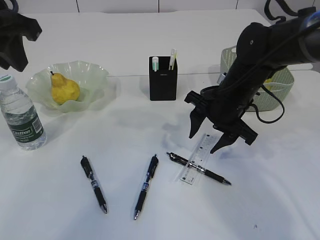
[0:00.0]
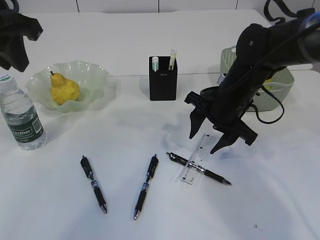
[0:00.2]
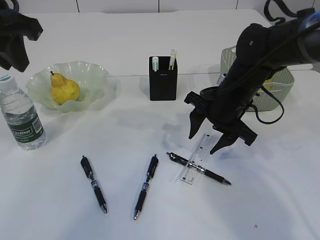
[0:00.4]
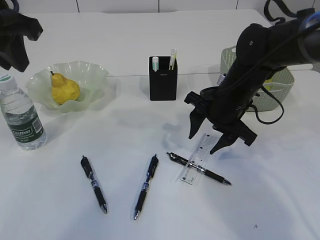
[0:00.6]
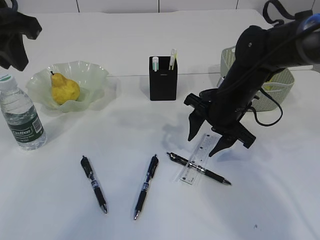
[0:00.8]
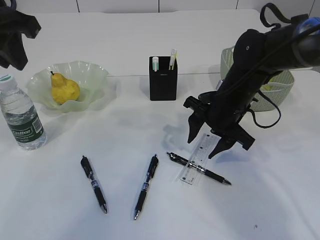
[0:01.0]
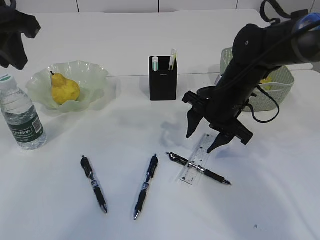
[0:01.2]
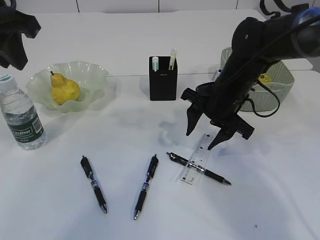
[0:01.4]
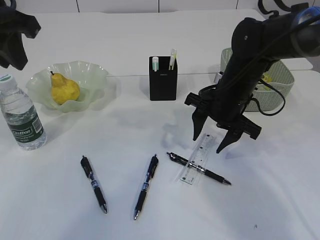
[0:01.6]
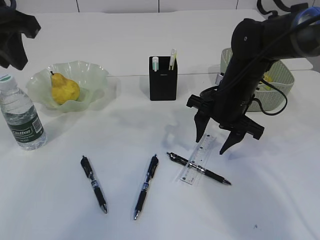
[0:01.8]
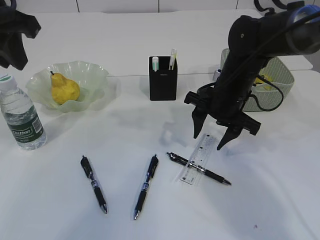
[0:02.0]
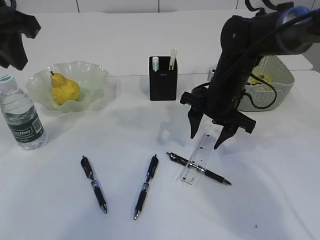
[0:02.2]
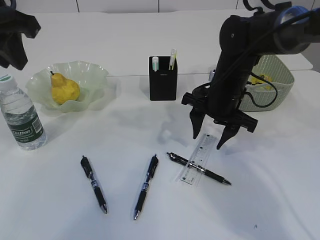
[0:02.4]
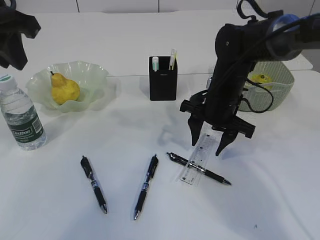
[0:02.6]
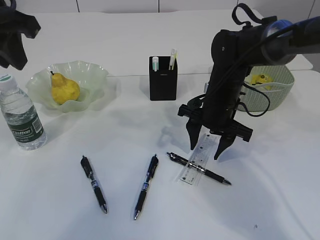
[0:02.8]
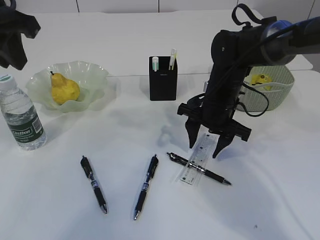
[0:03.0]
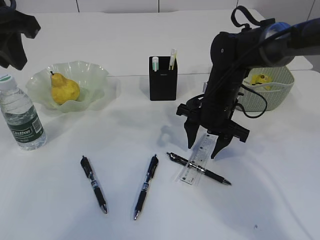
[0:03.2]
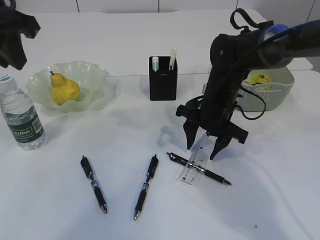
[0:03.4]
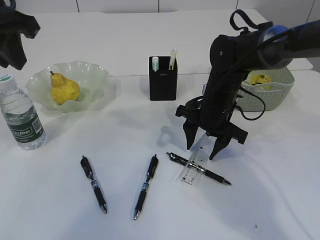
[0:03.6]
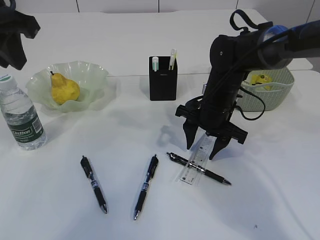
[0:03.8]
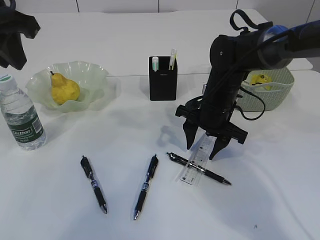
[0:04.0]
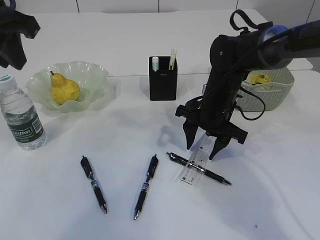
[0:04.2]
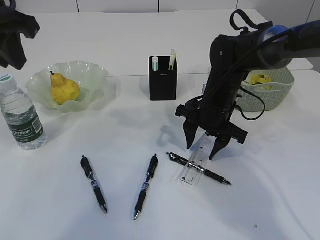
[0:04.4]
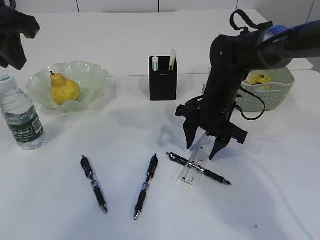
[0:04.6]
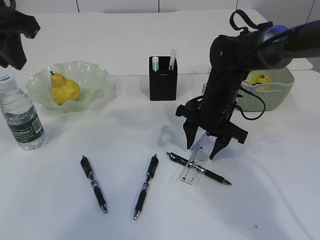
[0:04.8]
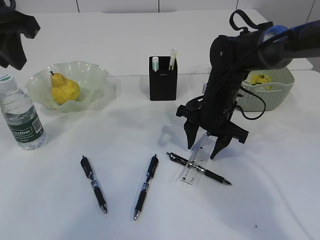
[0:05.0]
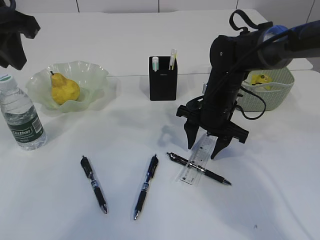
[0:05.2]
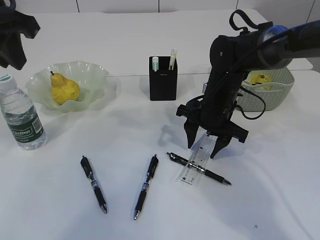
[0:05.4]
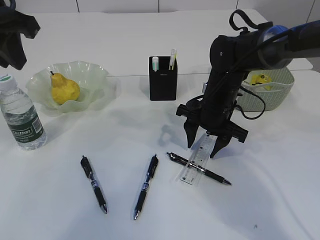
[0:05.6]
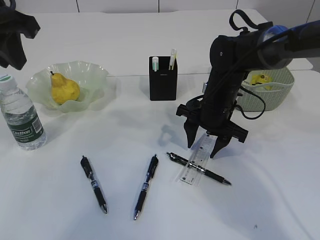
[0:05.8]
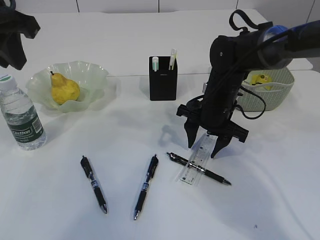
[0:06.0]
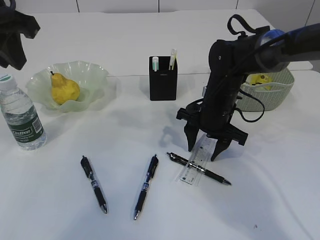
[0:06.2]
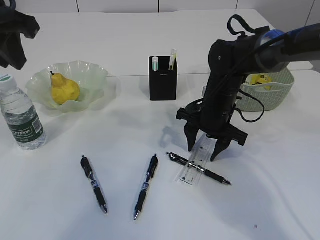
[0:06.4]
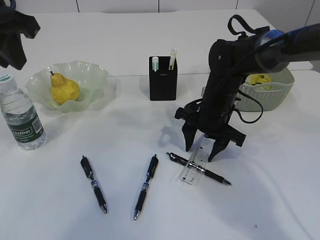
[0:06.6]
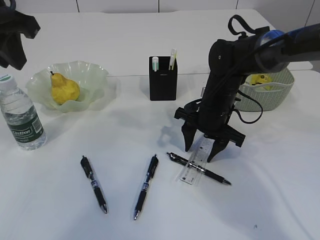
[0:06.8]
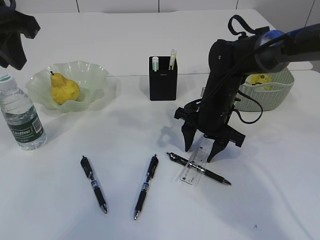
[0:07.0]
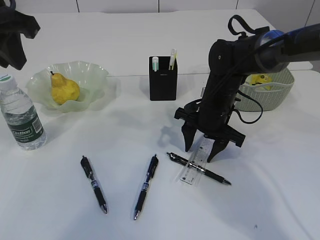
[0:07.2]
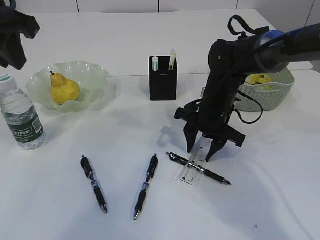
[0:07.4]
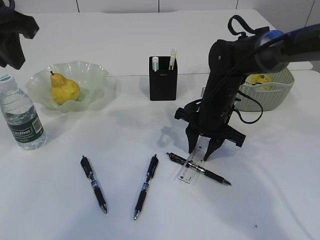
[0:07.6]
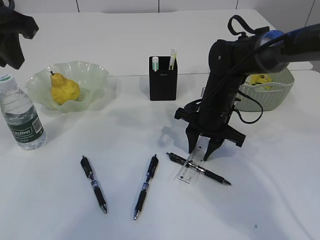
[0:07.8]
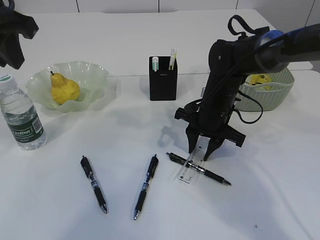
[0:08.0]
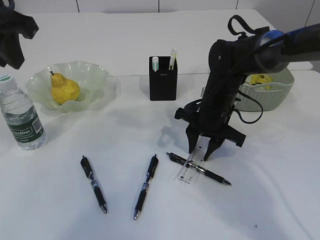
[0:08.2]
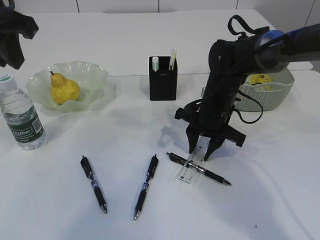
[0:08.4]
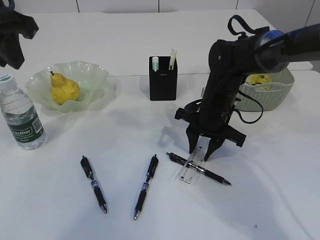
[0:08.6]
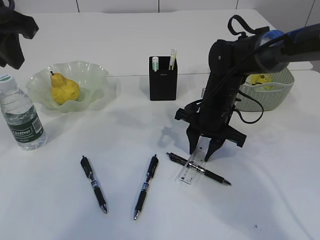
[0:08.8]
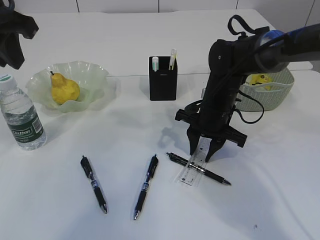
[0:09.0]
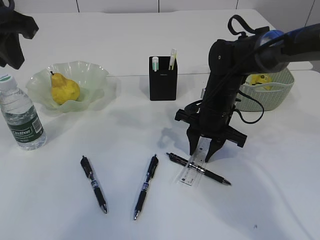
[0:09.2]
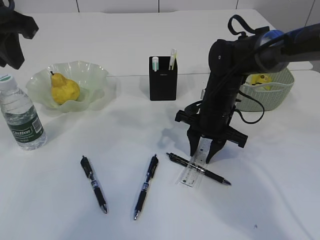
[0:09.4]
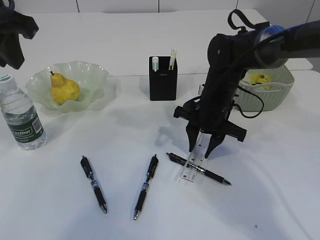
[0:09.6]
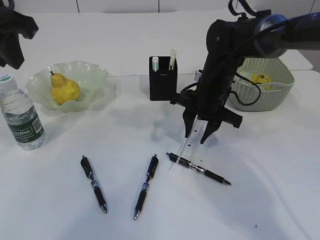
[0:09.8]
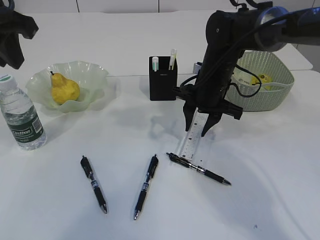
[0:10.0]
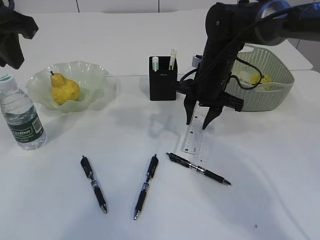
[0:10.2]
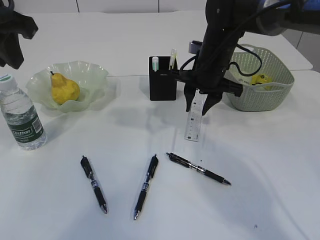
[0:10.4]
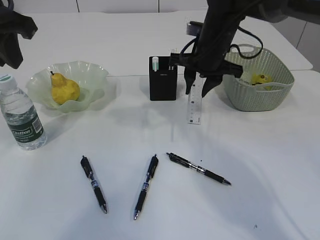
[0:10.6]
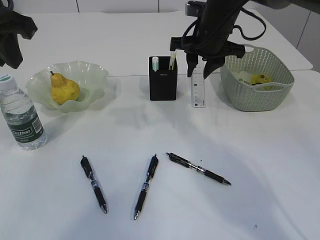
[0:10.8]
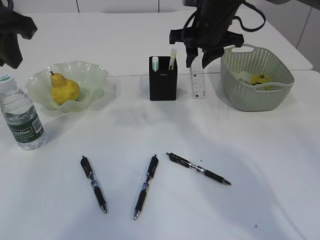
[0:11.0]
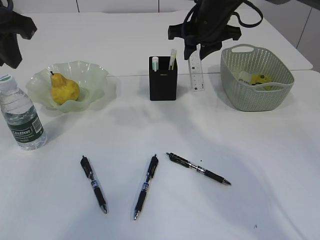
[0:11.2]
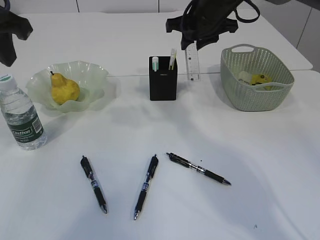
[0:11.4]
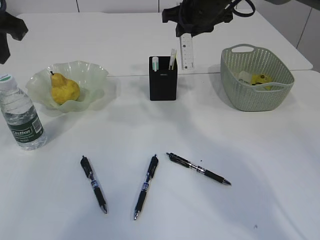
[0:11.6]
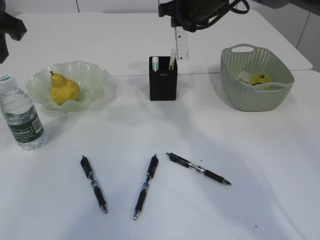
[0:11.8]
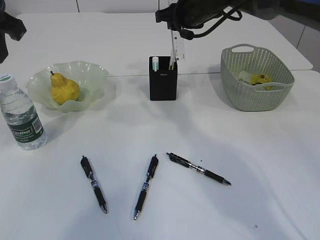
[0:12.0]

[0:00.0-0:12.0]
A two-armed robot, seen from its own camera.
Step, 0:00.0 to 0:10.6: pick up the ruler.
0:00.0 to 0:03.0: There are only small adjustments of the grippers.
0:03.0 to 0:06.0: Both grippers stay put.
0:06.0 to 0:09.0: Neither gripper changes place.
0:09.0 to 0:10.4: The right gripper heads upward, covering some 5 cm.
0:10.4 to 0:12.0: The right gripper is displaced upward and forward by about 10 cm.

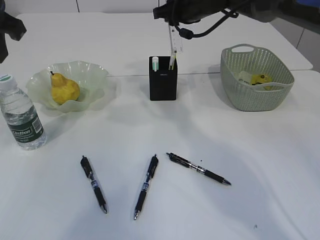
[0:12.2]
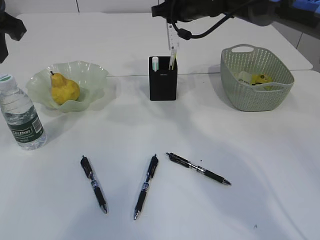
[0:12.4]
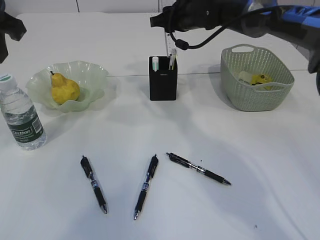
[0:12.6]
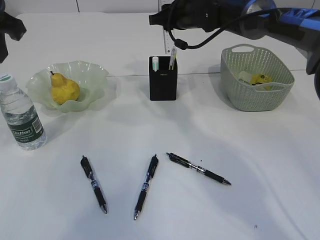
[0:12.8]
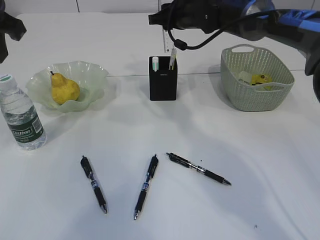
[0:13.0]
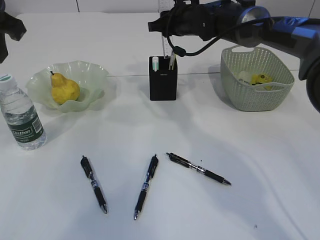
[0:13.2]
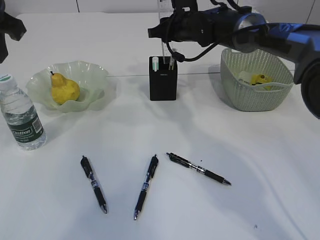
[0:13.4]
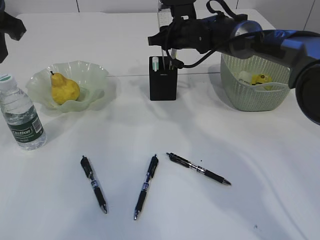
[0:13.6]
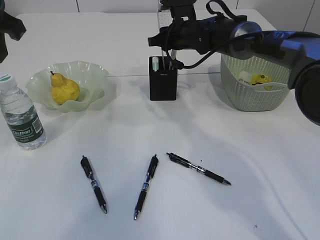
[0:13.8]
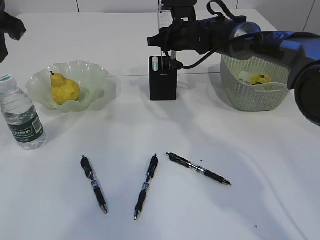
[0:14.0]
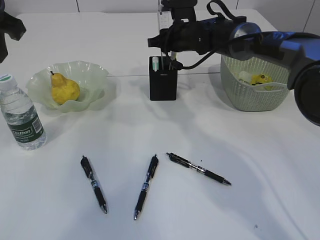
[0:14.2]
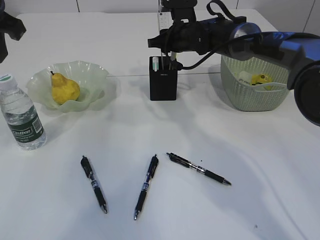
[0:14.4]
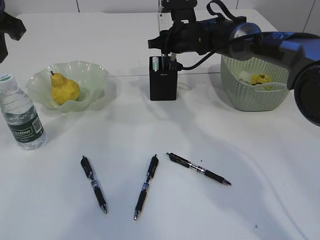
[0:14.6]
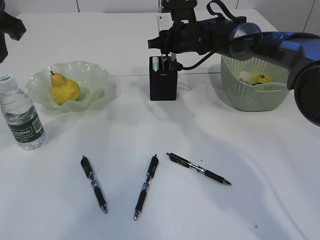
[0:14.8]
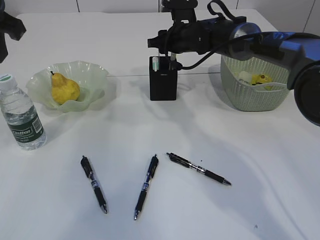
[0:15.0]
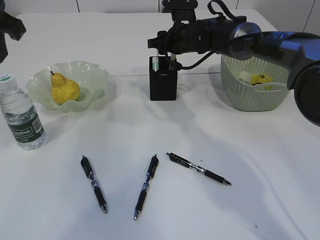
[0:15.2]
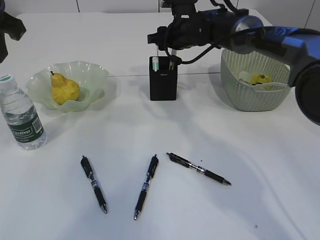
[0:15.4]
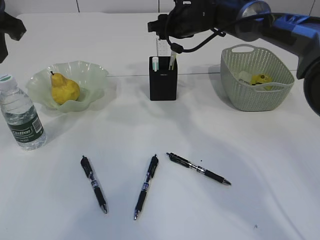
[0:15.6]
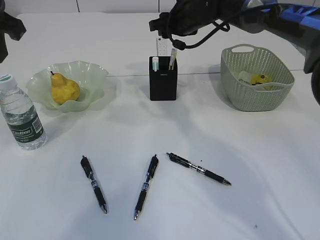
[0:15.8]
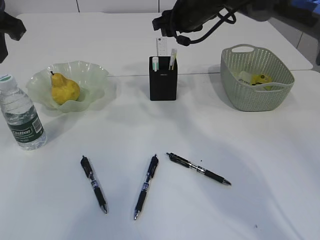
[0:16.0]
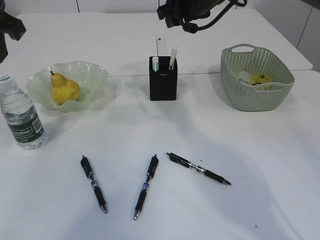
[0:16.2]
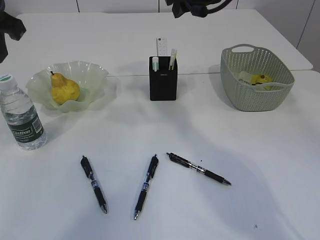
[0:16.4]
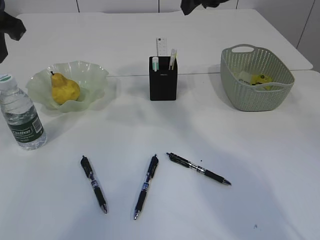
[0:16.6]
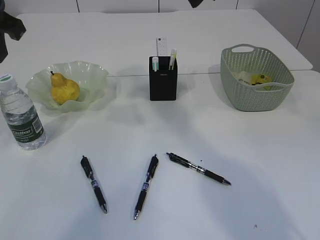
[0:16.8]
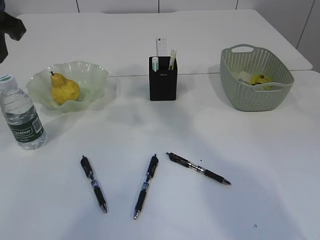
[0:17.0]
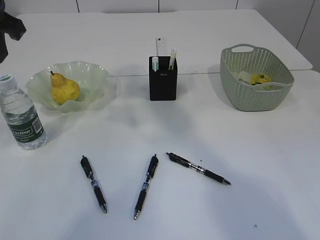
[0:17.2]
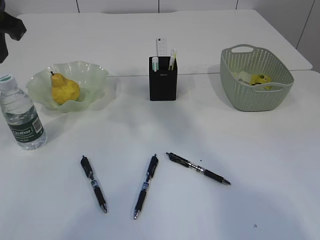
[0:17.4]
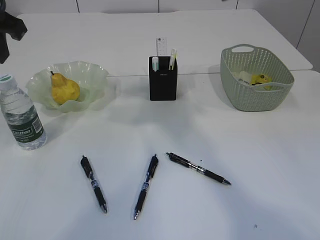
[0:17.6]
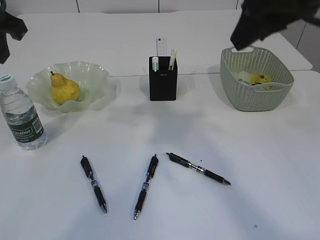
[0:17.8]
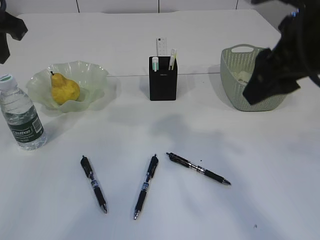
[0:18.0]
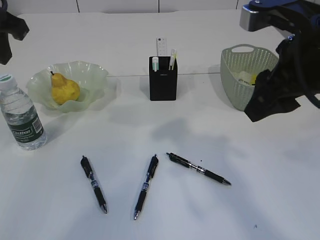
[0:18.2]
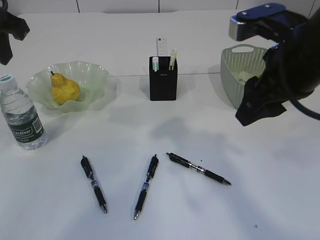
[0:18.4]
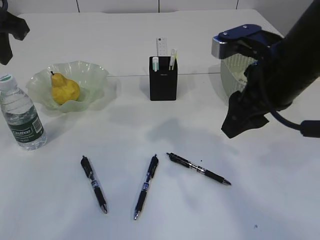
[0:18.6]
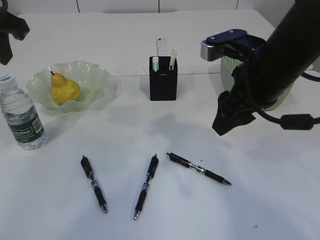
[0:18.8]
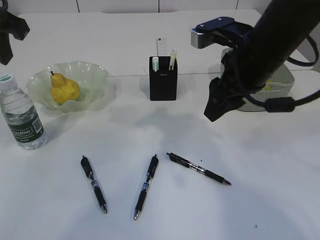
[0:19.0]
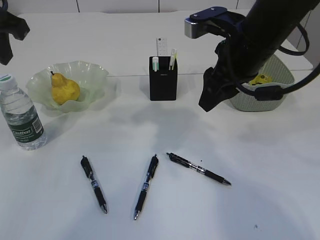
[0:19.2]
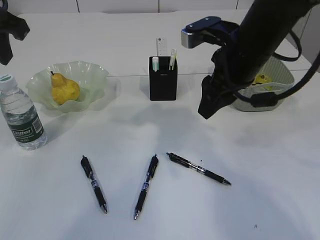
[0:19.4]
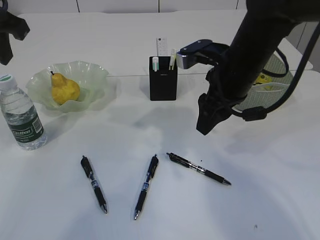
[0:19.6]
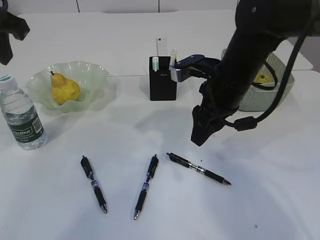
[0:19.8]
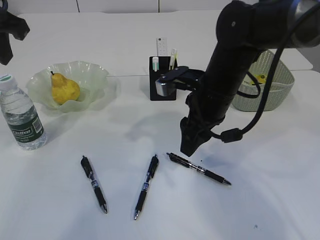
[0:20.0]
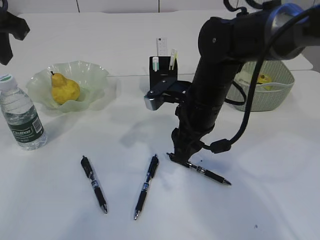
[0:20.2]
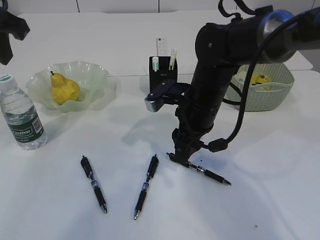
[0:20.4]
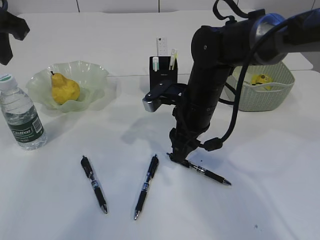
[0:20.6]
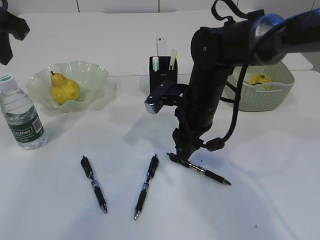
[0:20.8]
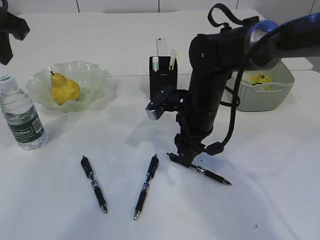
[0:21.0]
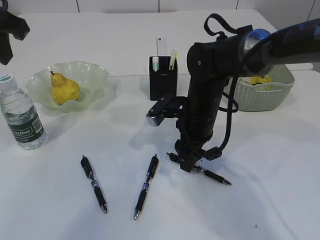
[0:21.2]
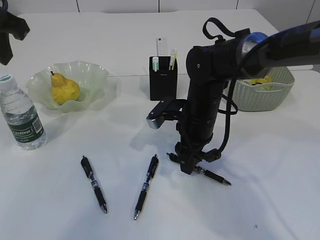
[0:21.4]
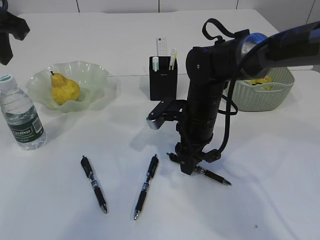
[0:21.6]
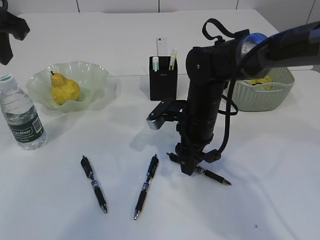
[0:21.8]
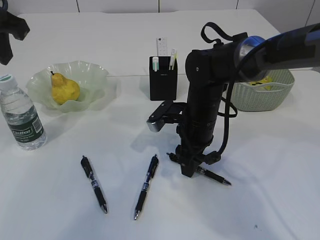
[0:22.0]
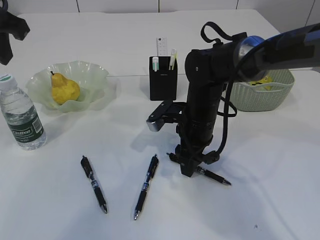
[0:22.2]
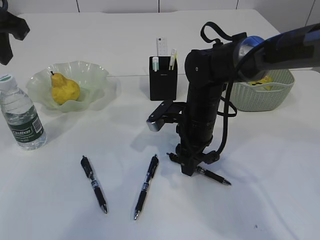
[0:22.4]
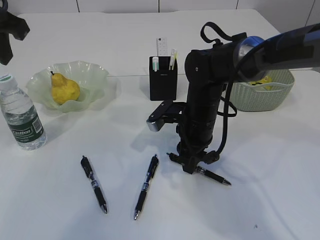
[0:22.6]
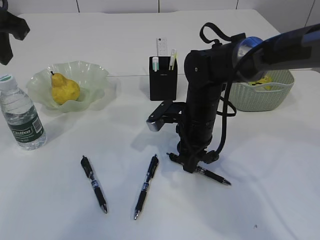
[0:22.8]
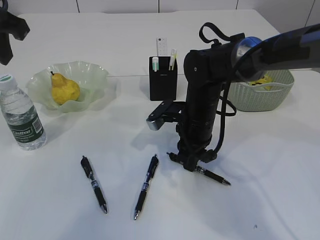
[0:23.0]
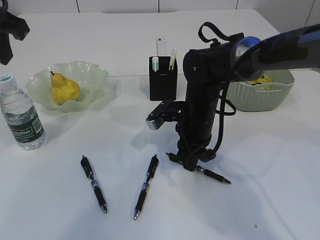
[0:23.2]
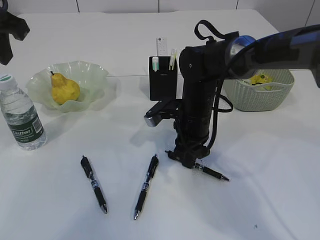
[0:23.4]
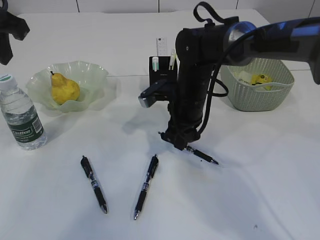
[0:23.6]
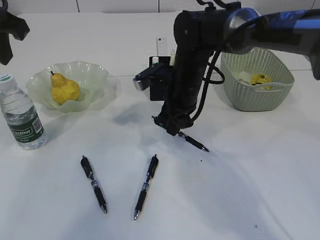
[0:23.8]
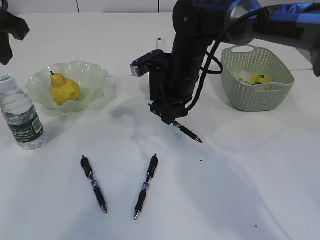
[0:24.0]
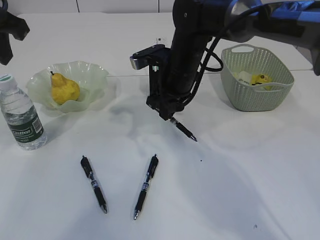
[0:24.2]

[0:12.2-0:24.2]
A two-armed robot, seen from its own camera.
Step, 0:12.2 to 0:15.8: Place the ruler into the pen holder.
Step, 0:16.0 to 0:24.0: Pick up the pen with right arm.
0:12.2 to 0:13.8: The right gripper heads downward, covering about 5 cm.
0:13.8 to 0:15.2: There are only small adjustments of the grippers.
0:15.2 to 0:16.6: The right gripper heads upward and backward, covering about 20 cm.
0:16.6 to 0:18.2: The right gripper heads backward, covering approximately 20 cm.
0:18.2 to 0:19.8: The right gripper is displaced forward, downward and to the left by approximately 15 cm.
0:19.8 to 0:21.2: The right gripper travels downward by roughly 10 cm.
0:21.2 to 0:22.6: There are only small adjustments of the grippers.
0:22.6 to 0:24.2: The right gripper moves upward and forward, about 10 cm.
